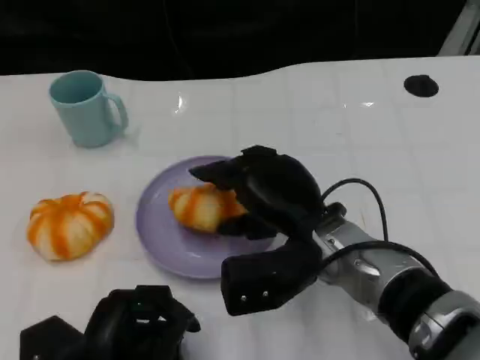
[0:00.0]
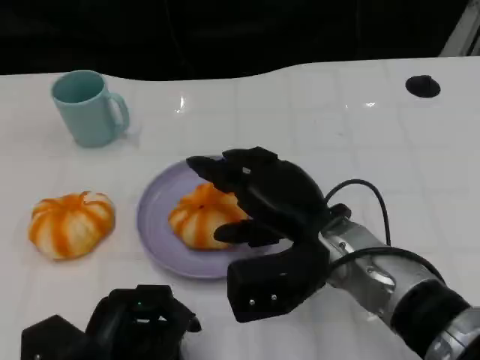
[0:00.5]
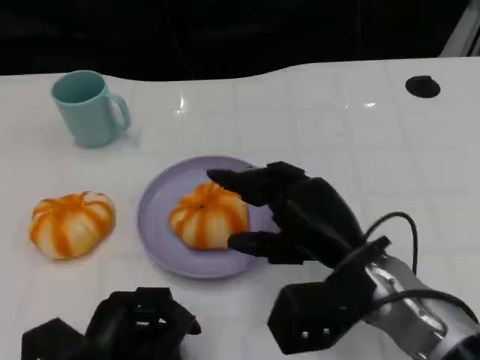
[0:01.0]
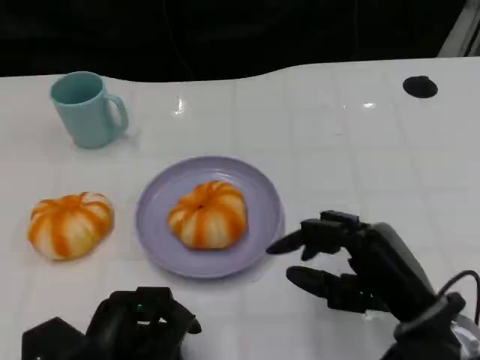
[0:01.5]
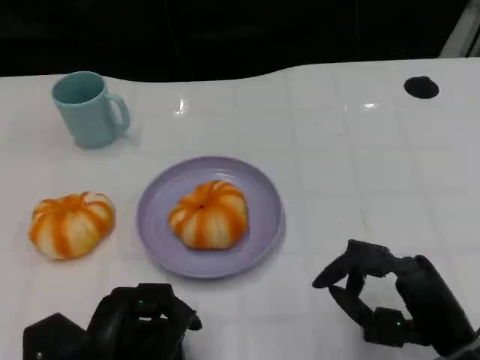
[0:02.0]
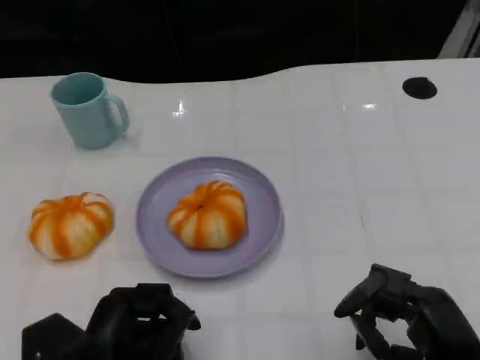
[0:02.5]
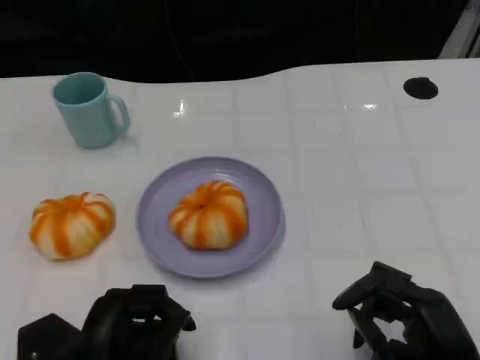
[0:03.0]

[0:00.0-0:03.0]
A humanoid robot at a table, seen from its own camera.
Task of the whole recording: Grasp the bread from the table and place it into the plate.
0:00.0 to 0:01.5: The right hand moves to the right and backward, some 15 cm.
0:01.5 to 0:03.0: The right hand is displaced backward by some 5 cm.

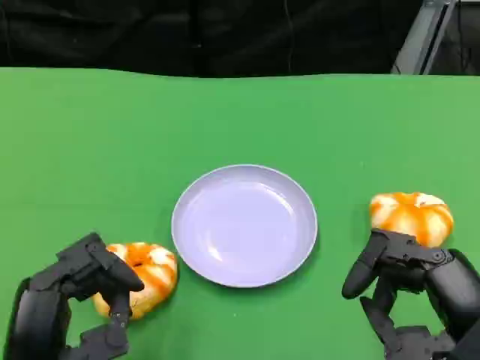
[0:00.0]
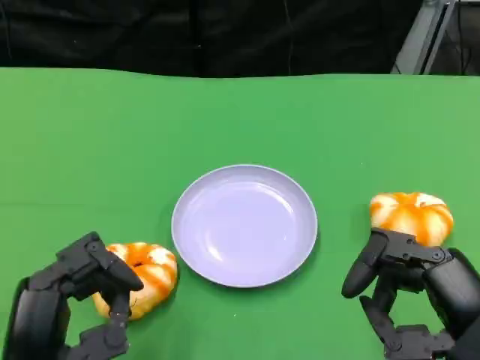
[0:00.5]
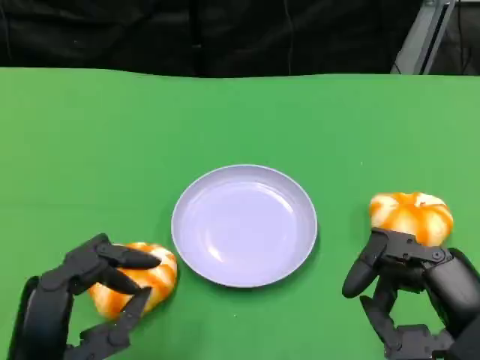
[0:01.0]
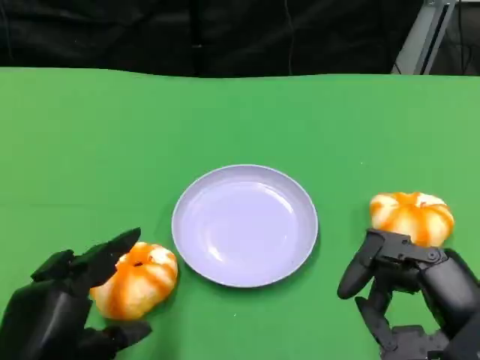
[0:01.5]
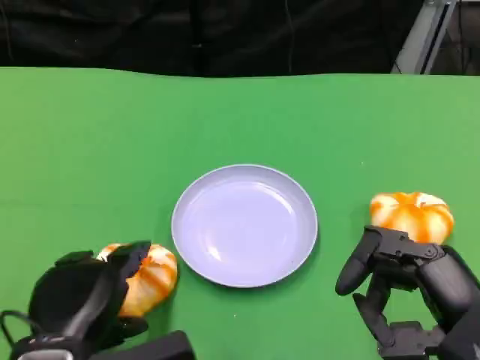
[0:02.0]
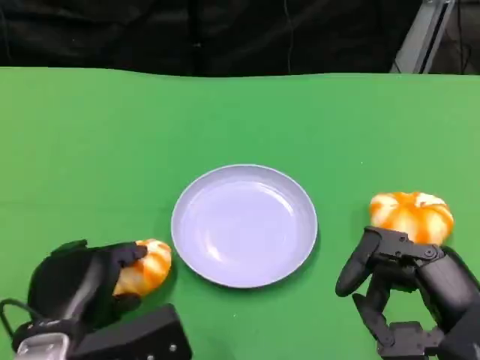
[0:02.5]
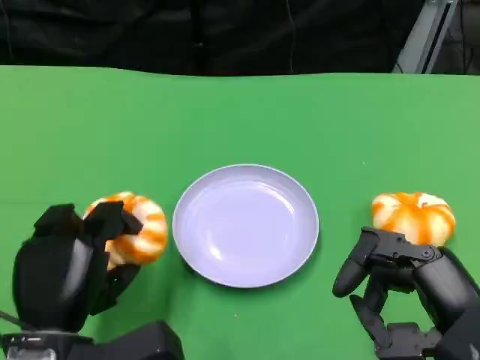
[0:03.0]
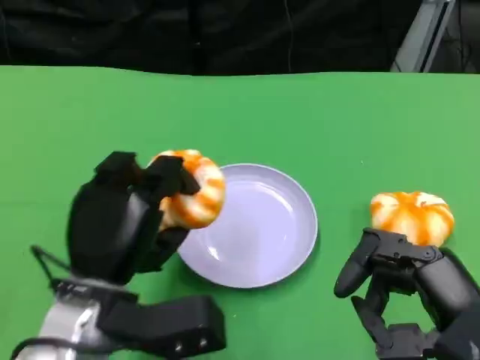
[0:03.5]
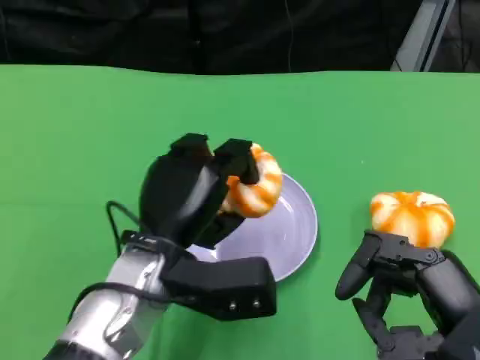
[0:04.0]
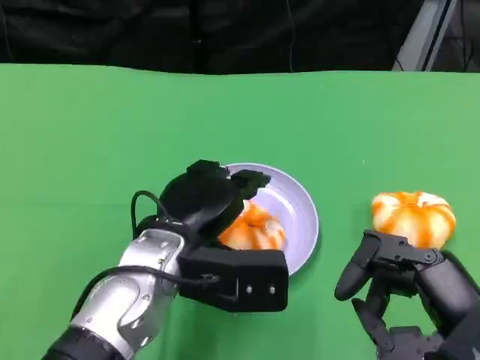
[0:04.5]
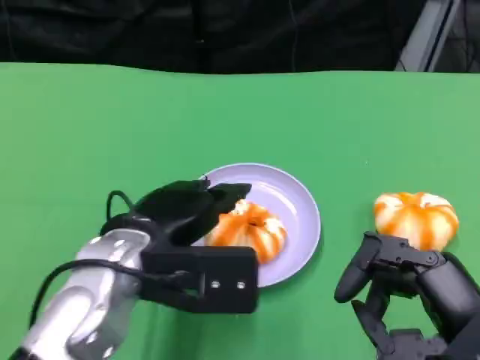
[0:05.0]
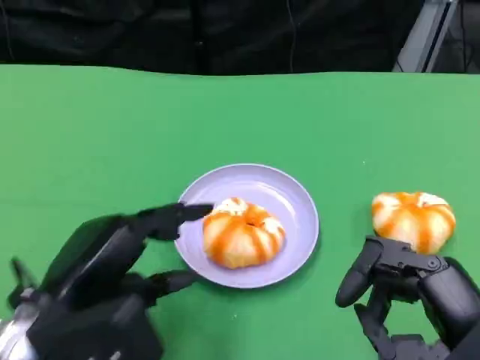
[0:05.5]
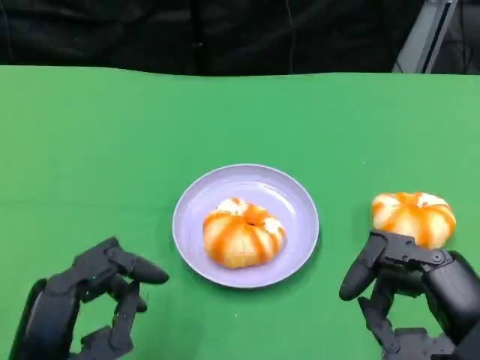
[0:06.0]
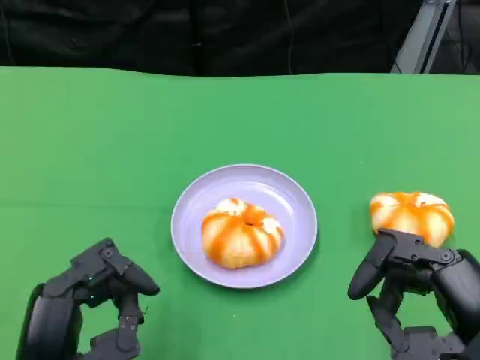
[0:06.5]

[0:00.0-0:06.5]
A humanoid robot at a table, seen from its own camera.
Task of the whole recording: Grasp the bread from the table and place it into the plate.
0:02.0 to 0:04.5: The left hand heads forward and to the right, covering some 15 cm.
0:04.5 to 0:06.5: The left hand is displaced backward and to the left by roughly 15 cm.

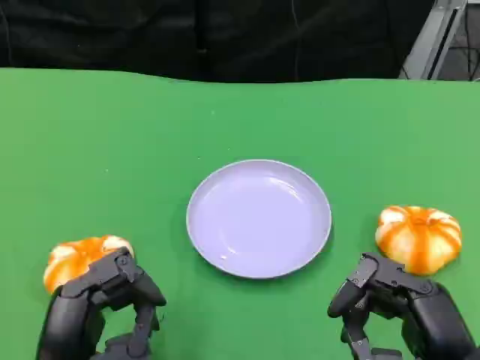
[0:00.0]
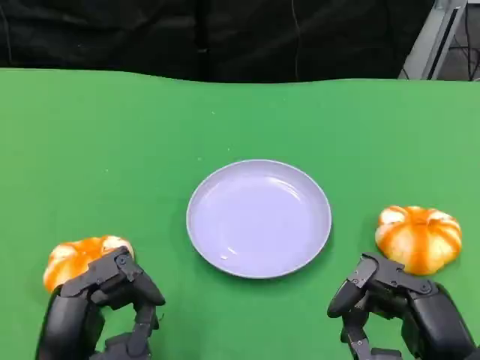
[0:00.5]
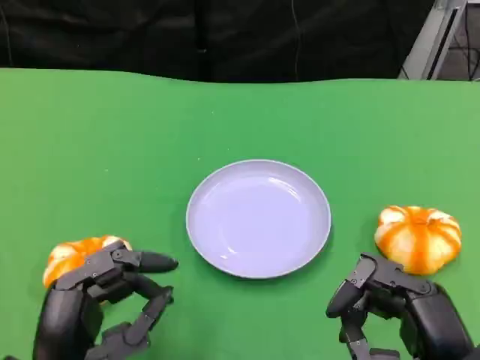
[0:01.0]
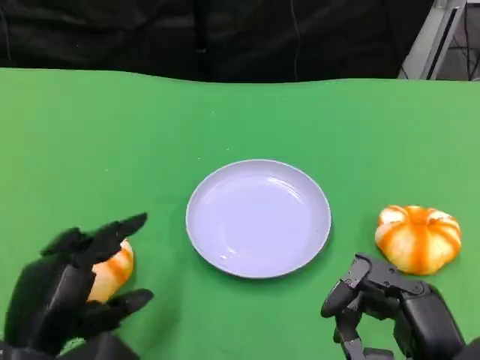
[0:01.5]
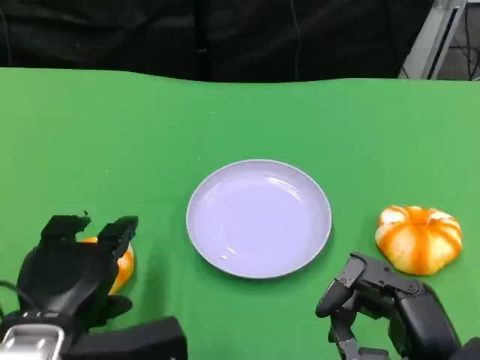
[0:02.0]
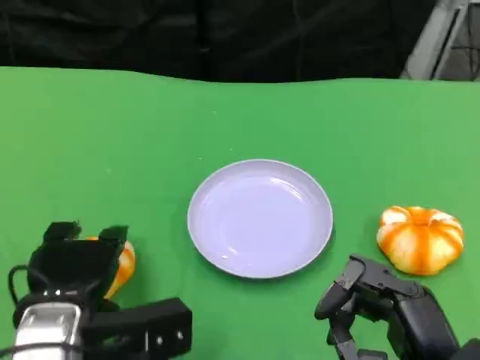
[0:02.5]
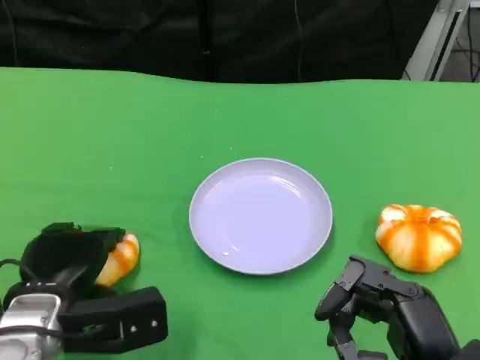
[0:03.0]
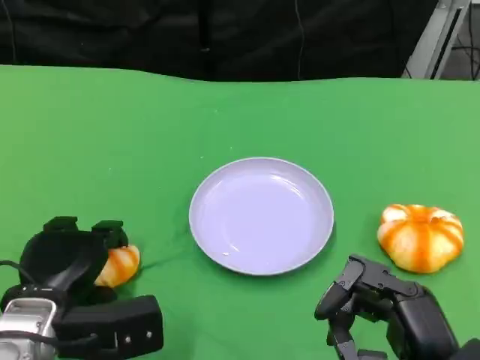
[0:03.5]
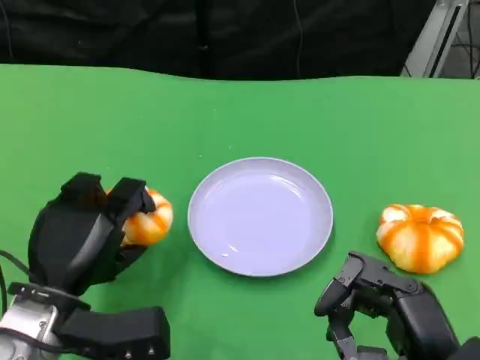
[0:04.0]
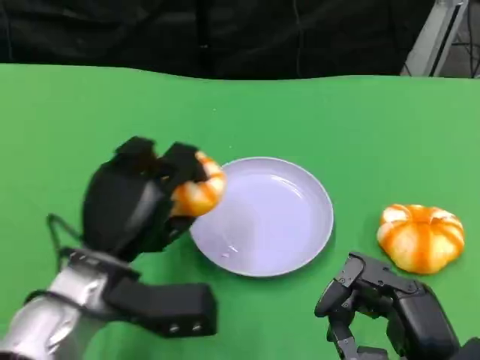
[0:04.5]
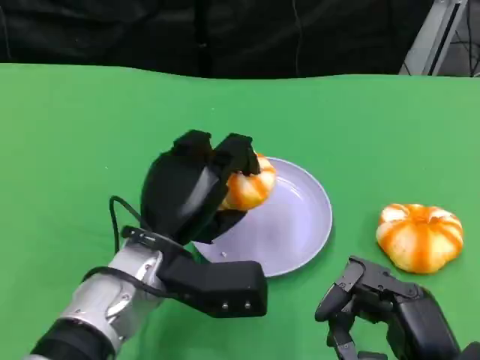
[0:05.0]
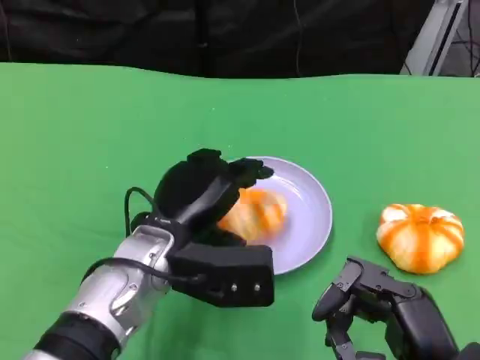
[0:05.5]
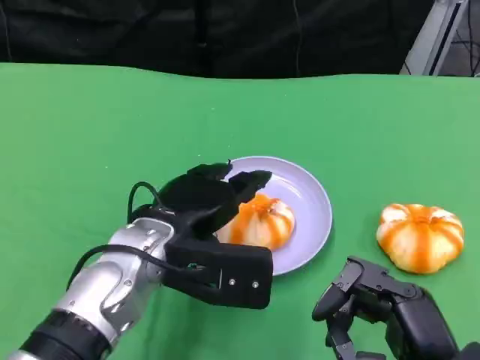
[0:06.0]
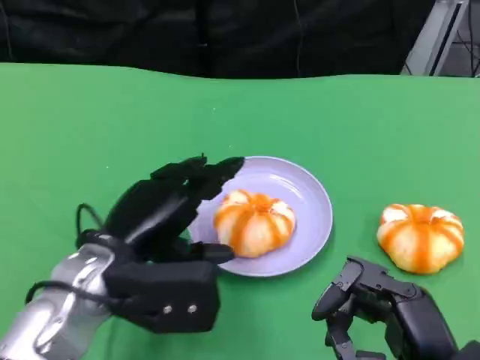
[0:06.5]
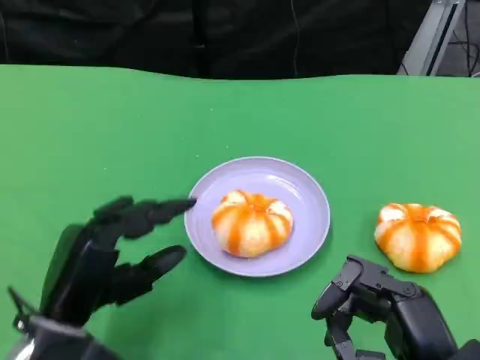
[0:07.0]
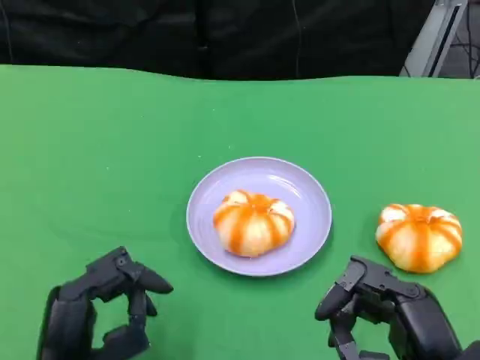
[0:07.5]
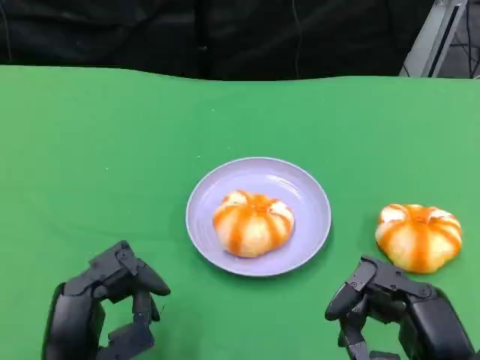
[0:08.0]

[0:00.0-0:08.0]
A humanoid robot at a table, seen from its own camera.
Task of the whole recording: Grasp the bread from the table and place it into the plate.
0:00.0 to 0:02.0: The left hand moves roughly 5 cm.
0:04.0 to 0:06.0: The left hand goes about 10 cm to the right and upward.
0:06.0 to 0:08.0: The left hand travels backward, to the left and downward by roughly 15 cm.

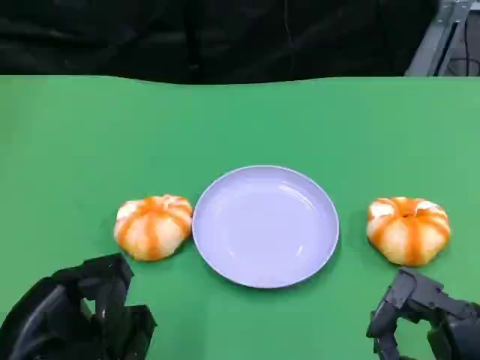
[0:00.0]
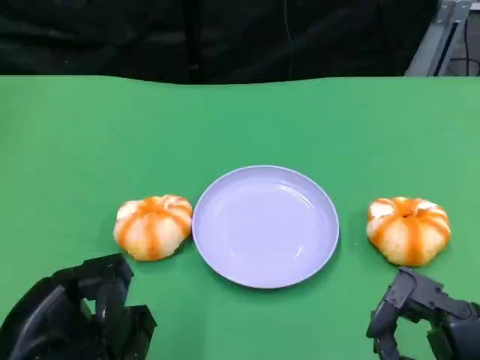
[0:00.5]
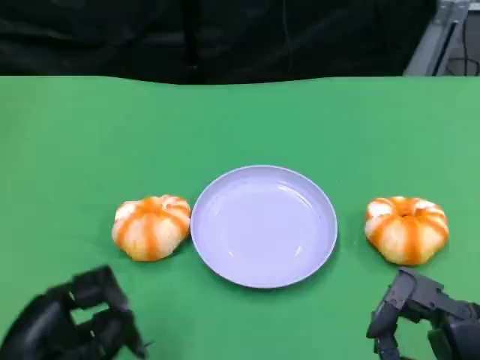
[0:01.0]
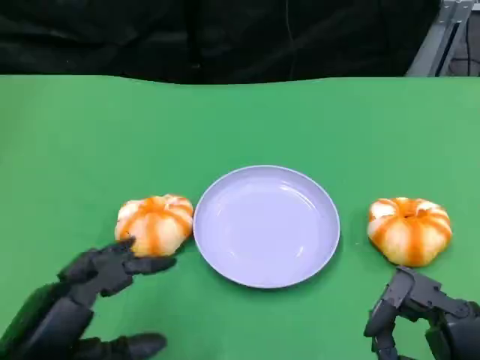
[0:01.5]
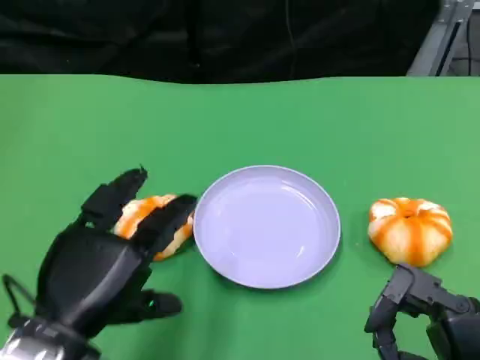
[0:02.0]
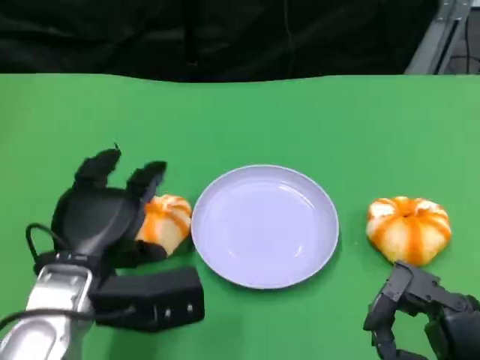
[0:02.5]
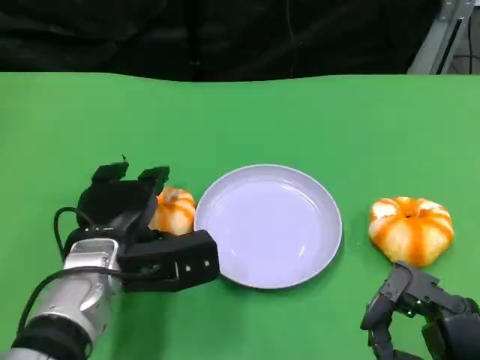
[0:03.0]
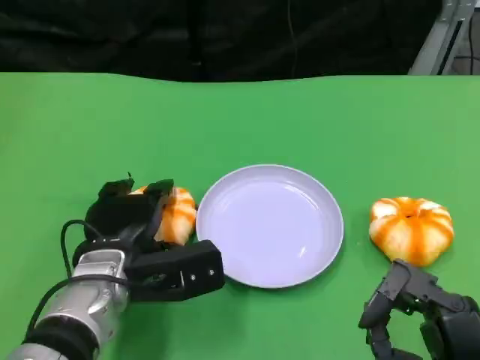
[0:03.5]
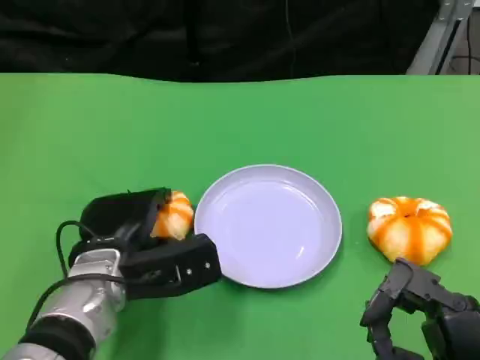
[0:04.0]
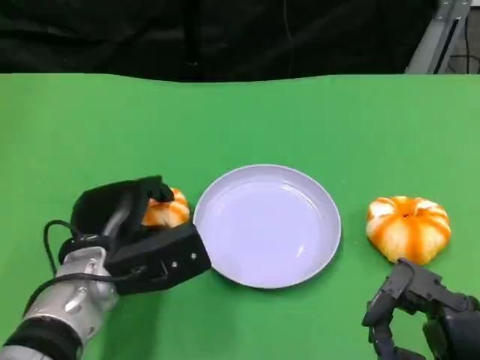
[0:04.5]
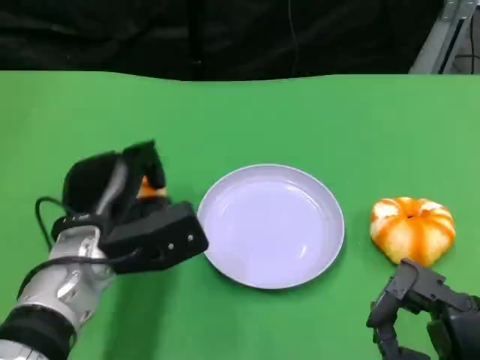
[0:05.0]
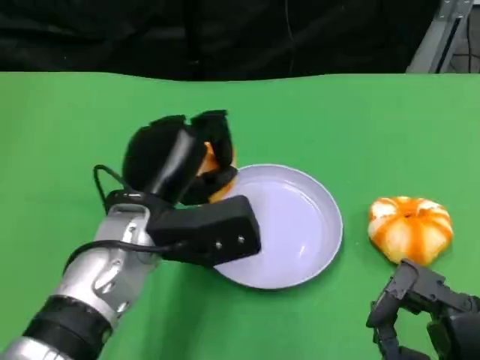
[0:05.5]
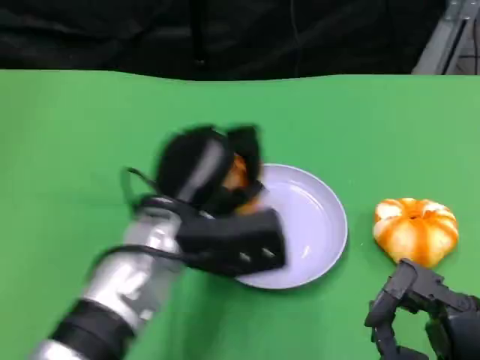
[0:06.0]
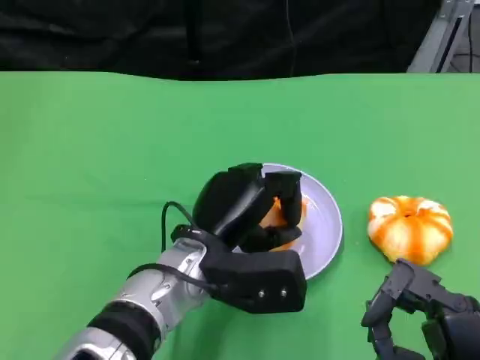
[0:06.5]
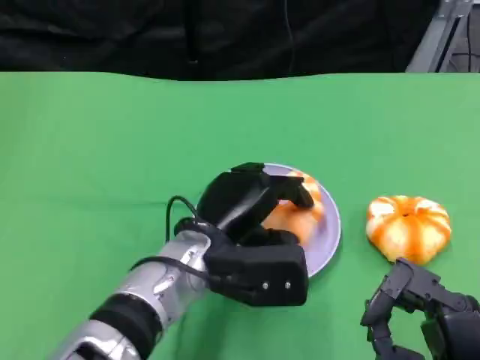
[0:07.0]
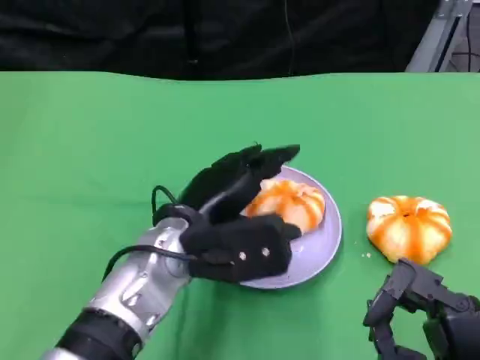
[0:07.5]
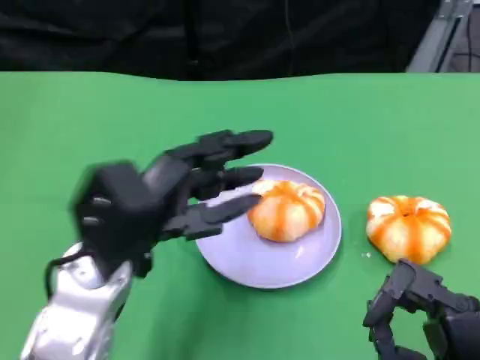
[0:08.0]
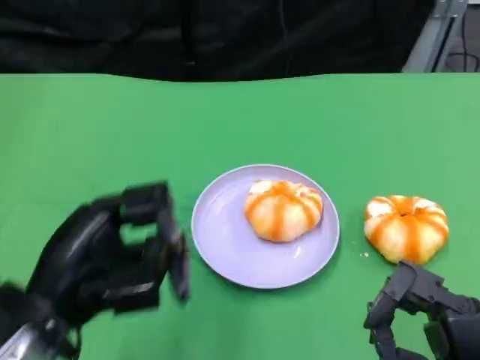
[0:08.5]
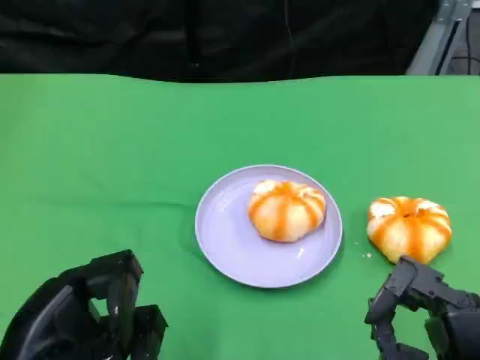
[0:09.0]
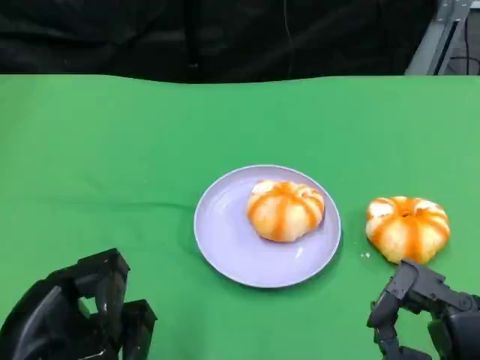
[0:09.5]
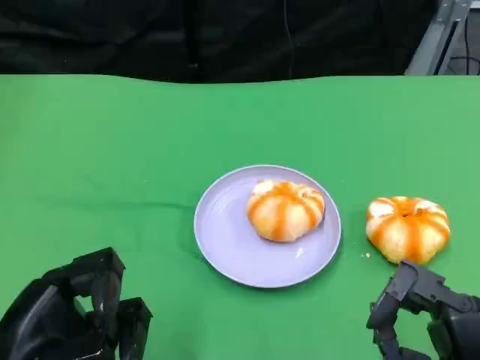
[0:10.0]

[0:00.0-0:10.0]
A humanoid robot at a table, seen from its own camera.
Task of the whole recording: Grasp the bread from the table and place it into the plate.
0:00.0 to 0:02.0: The left hand is displaced to the right by approximately 5 cm.
0:02.0 to 0:04.0: The left hand is displaced forward and downward by approximately 10 cm.
0:04.0 to 0:06.0: The left hand travels to the right and upward by roughly 10 cm.
0:06.0 to 0:08.0: The left hand moves to the left, approximately 10 cm.
0:08.0 to 0:10.0: The left hand travels backward and to the left by approximately 15 cm.
